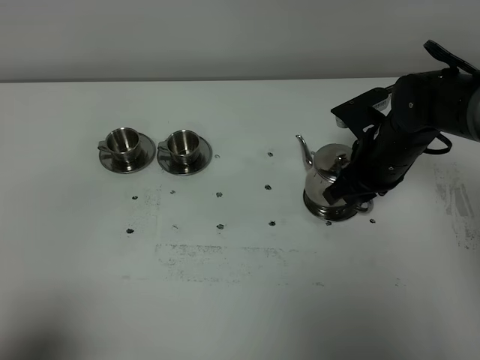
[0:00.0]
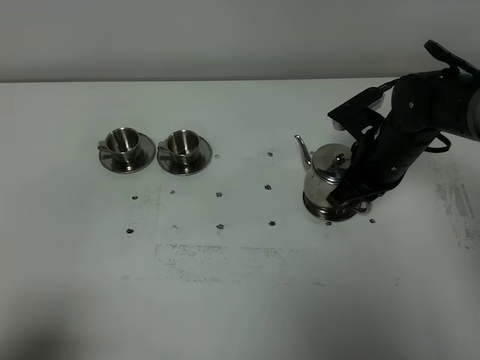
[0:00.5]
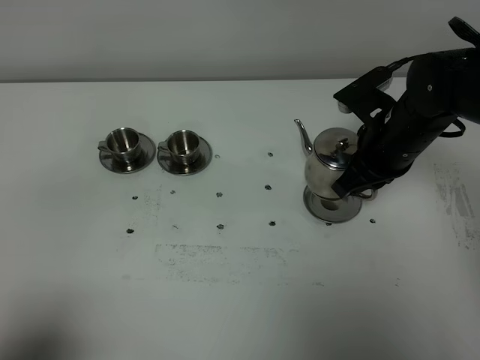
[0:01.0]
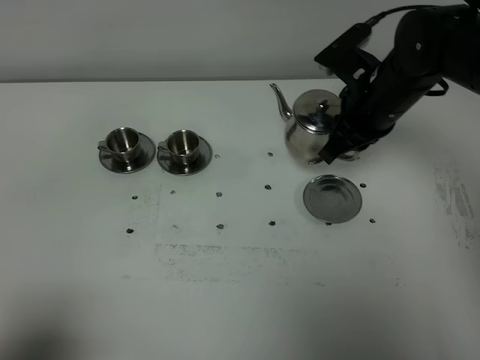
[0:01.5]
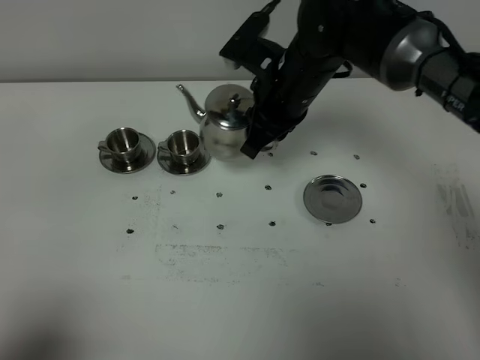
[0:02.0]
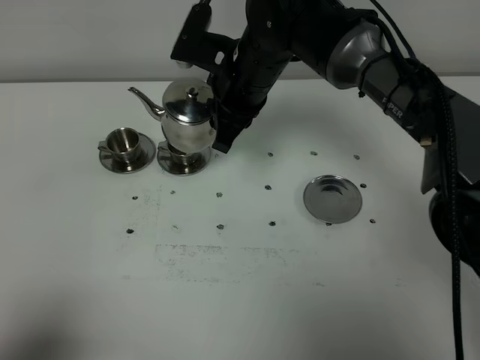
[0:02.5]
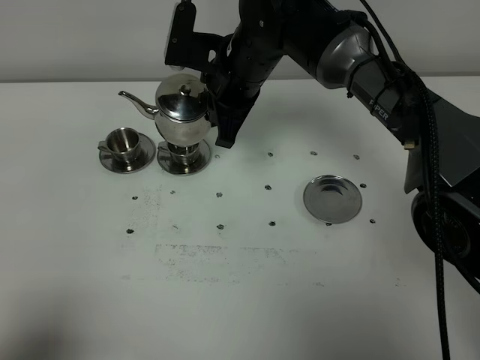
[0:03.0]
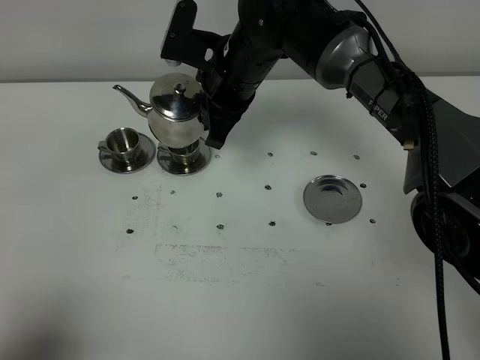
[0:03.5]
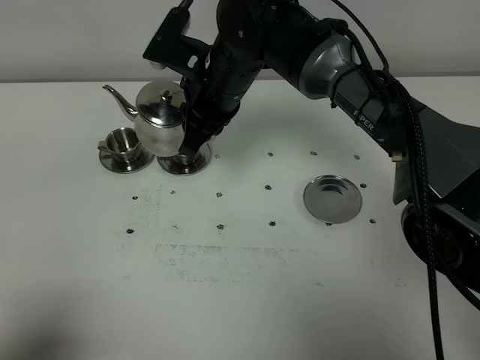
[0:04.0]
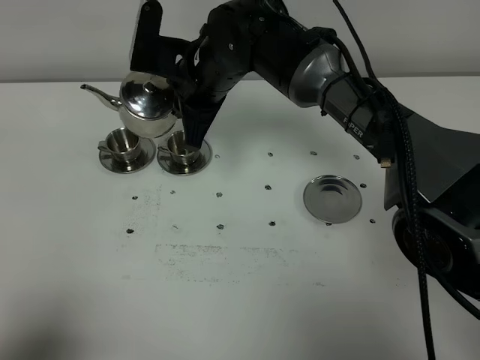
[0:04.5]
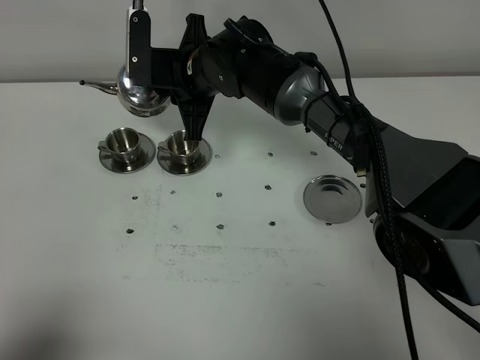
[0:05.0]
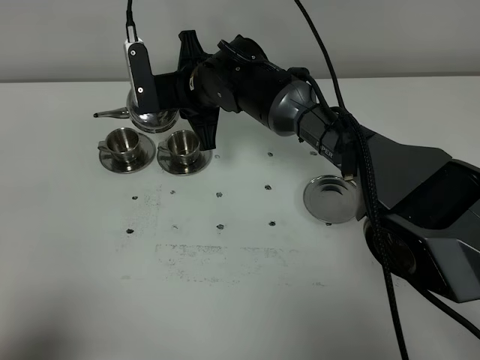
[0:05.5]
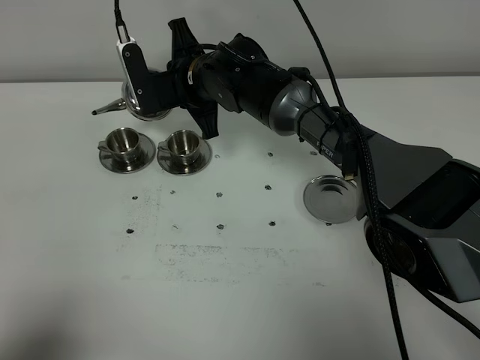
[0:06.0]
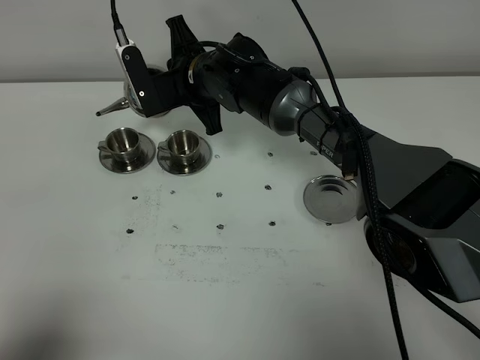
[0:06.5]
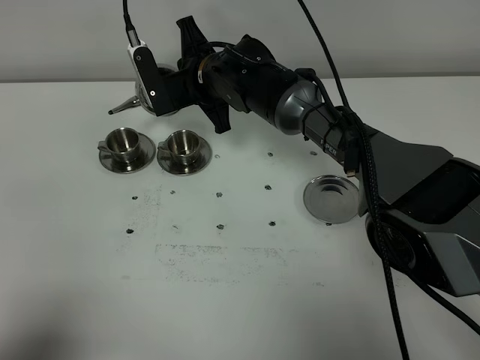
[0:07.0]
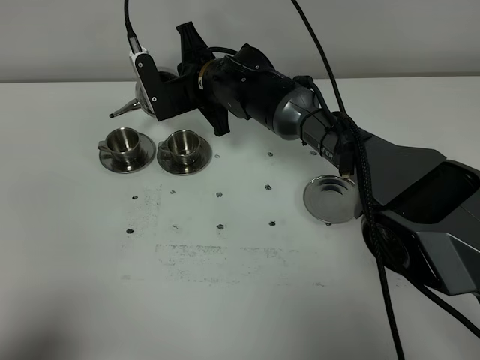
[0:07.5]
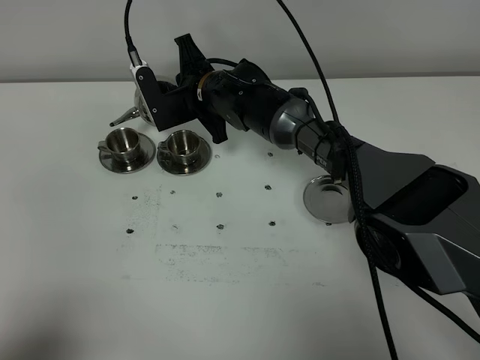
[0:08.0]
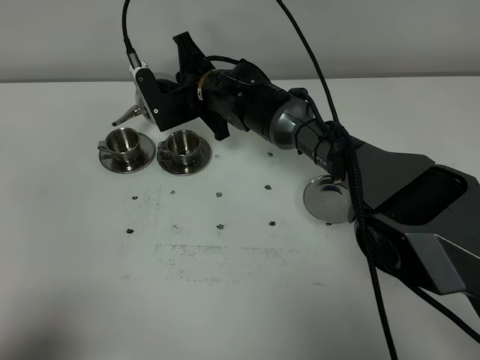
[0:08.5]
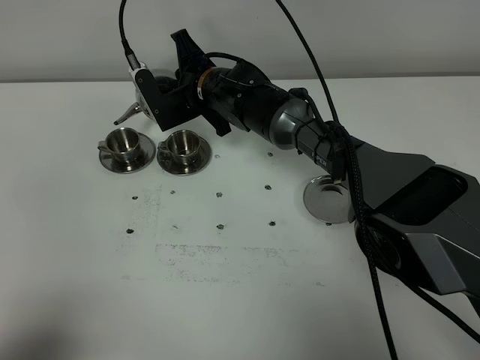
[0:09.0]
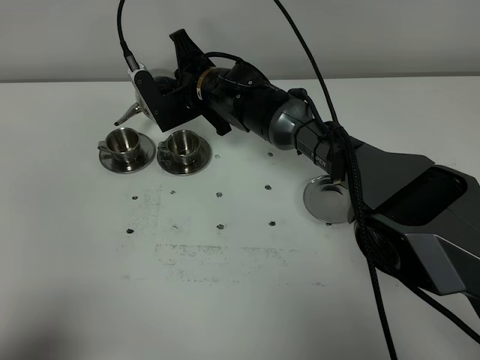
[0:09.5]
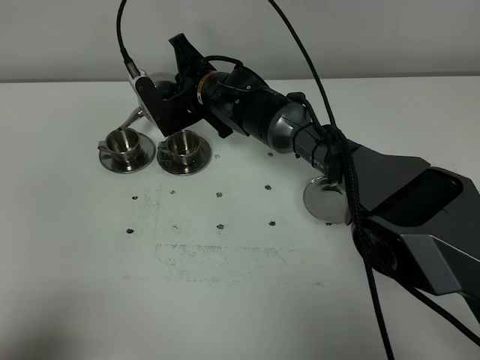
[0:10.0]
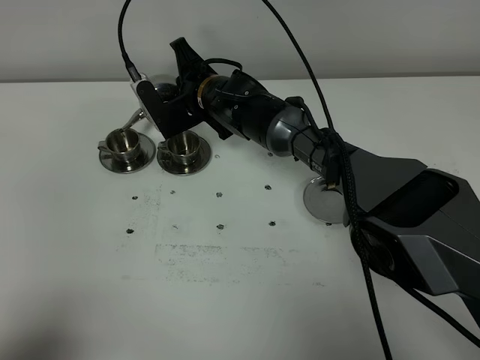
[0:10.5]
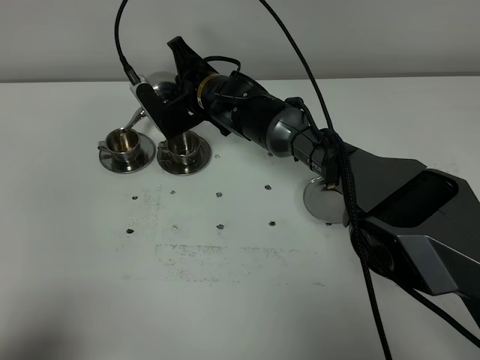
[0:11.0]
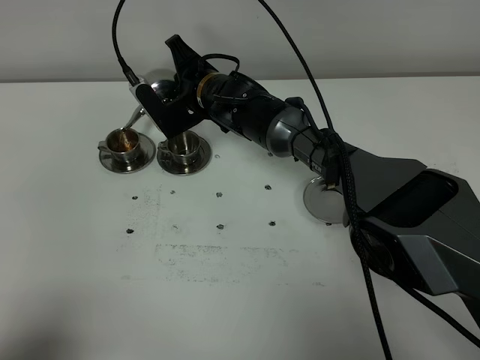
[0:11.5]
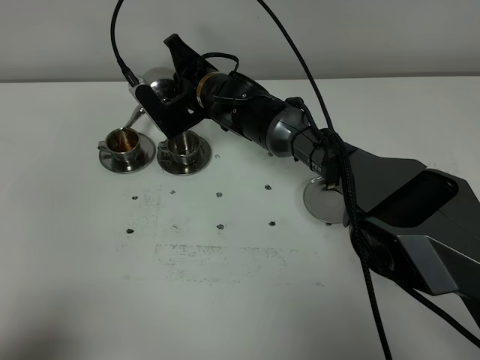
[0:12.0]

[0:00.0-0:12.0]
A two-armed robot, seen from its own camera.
Task of the whole recording: grasp the stainless steel teapot and pour the tea into the two stainless steel teacups one by one, put the stainless steel teapot back in its original place.
0:00.0 to 0:02.0: The right gripper travels to the left and upward by approximately 15 cm.
0:02.0 to 0:04.0: The right gripper shifts approximately 5 cm to the left.
0:04.0 to 0:06.0: The right gripper moves about 5 cm.
0:06.0 to 0:10.0: The grippers stay close to where they were, moving slightly.
0:10.0 to 0:12.0: The grippers make only small movements.

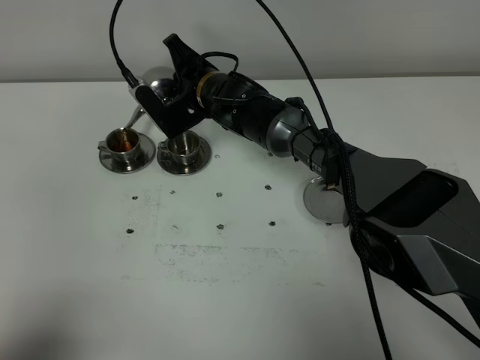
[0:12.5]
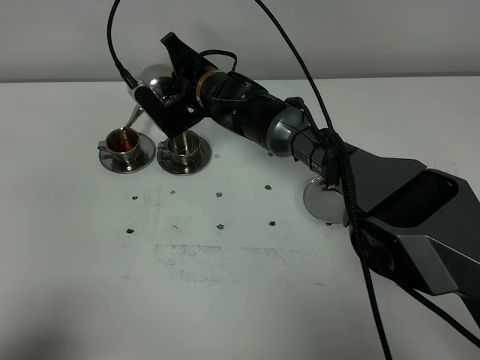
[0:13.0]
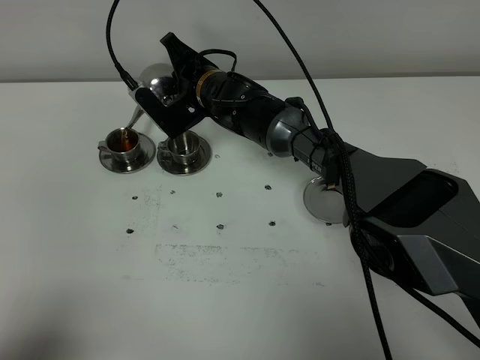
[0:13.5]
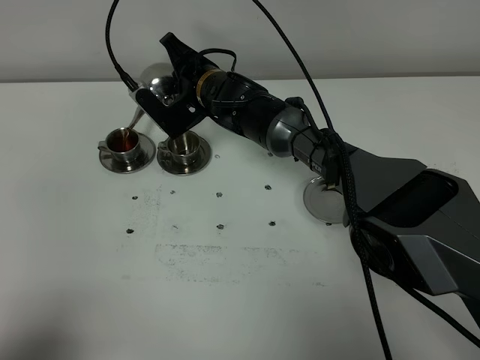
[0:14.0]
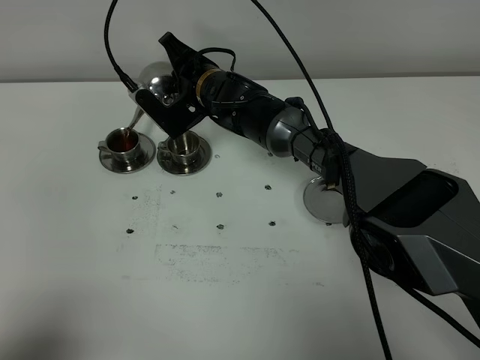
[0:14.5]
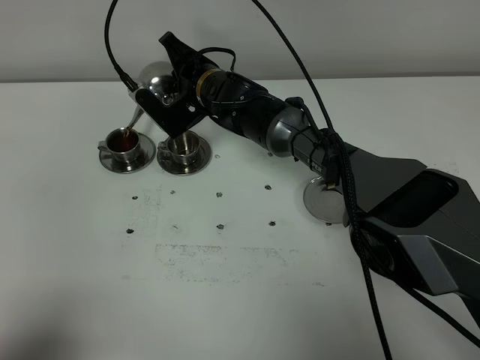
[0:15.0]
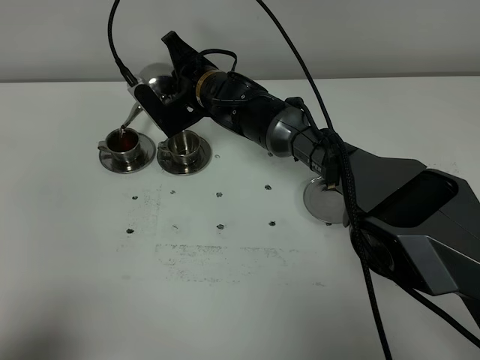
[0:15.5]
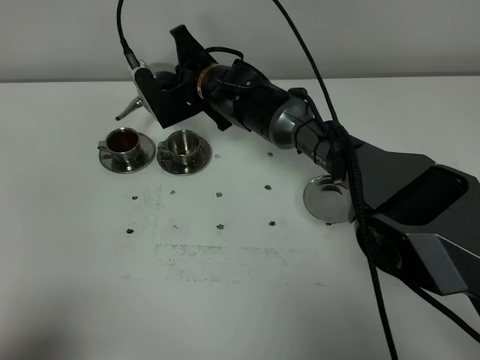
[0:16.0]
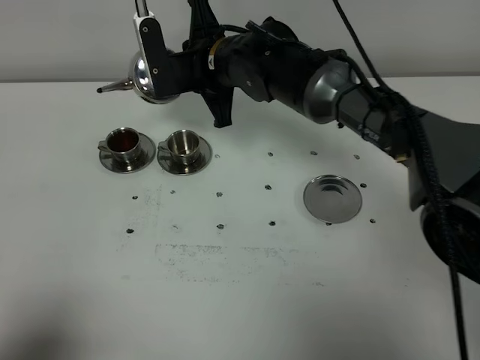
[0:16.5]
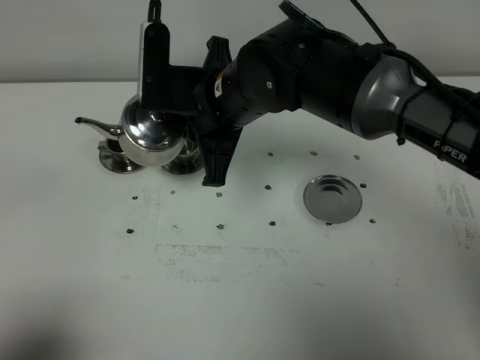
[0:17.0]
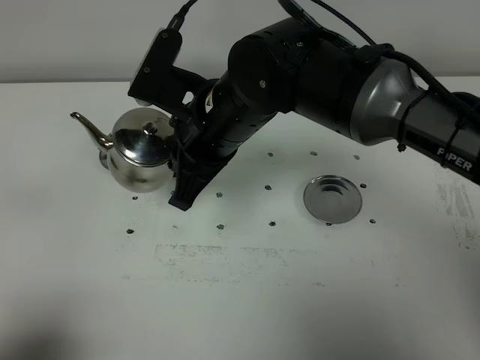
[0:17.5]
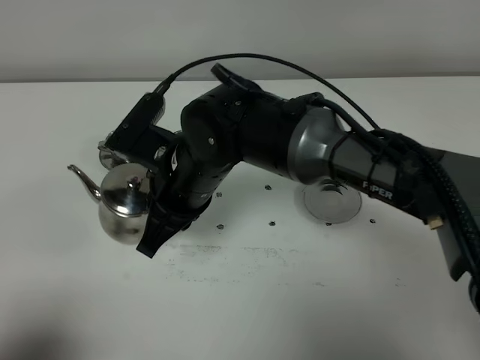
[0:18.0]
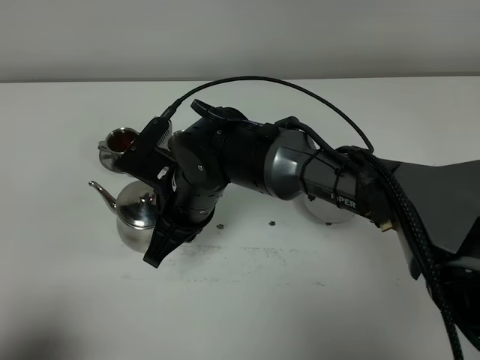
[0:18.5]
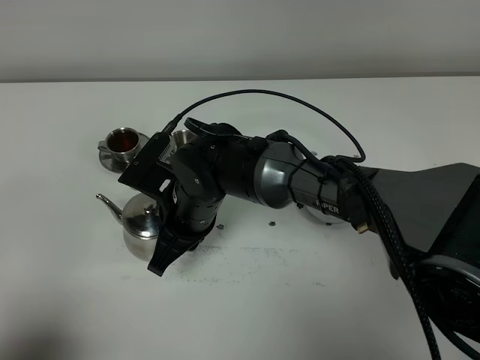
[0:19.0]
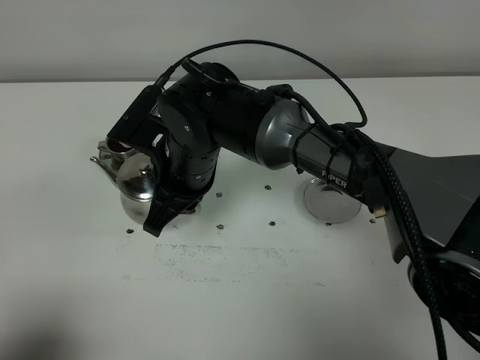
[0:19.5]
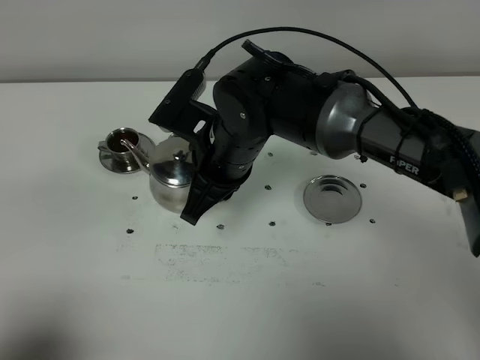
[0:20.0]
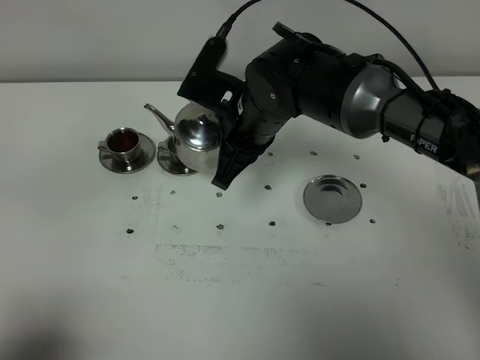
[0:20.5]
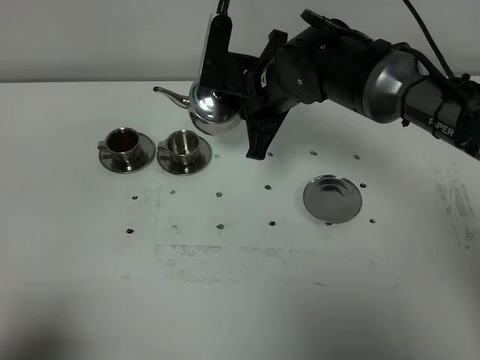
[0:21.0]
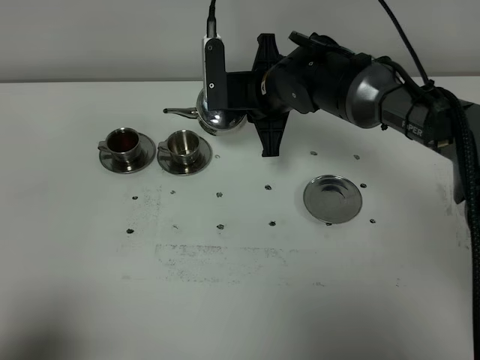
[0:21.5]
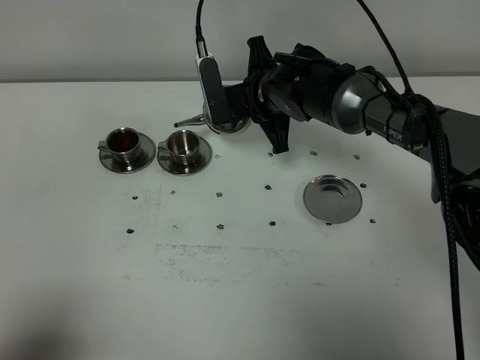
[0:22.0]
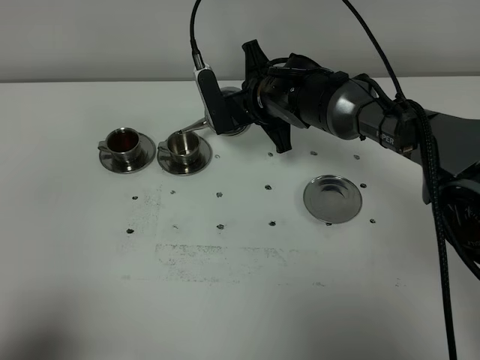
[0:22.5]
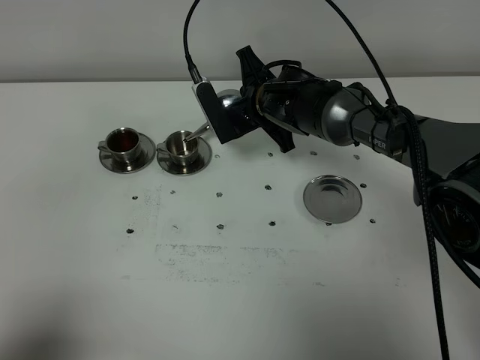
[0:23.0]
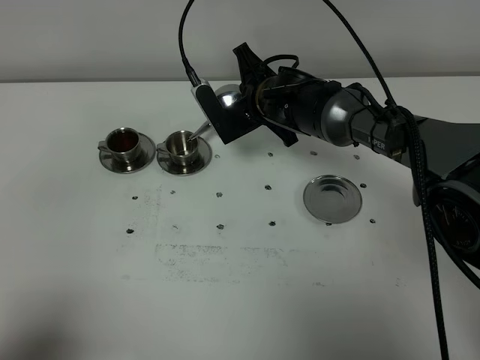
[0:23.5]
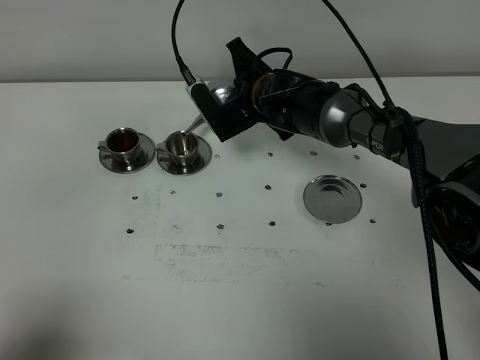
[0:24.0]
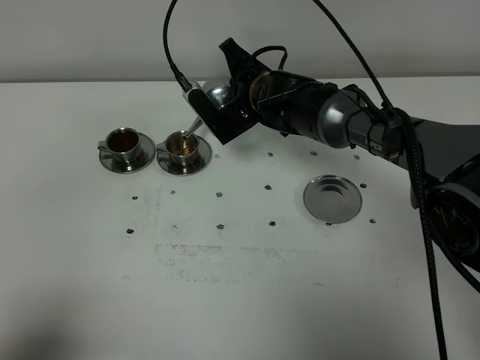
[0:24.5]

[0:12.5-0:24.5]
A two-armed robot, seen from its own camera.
Task of the whole recording: grasp the stainless steel teapot and pour the tea into the two stainless steel teacups one by one, put the stainless steel teapot back in its original place.
0:12.5 to 0:14.5: The grippers make only small movements.
0:14.5 to 0:16.5: The right gripper heads upward and backward, covering approximately 10 cm.
0:16.5 to 0:18.5: The right gripper travels backward and downward by some 15 cm.
0:18.5 to 0:20.5: The right gripper moves to the right, forward and upward, about 10 cm.
0:20.5 to 0:22.5: The right gripper travels forward and downward by roughly 10 cm.

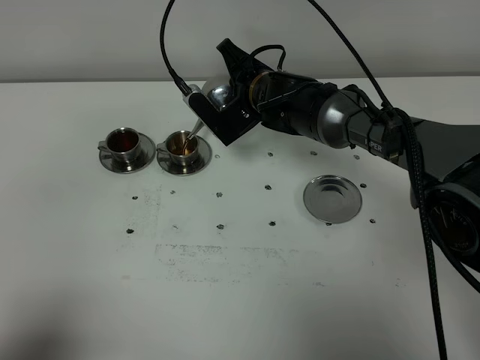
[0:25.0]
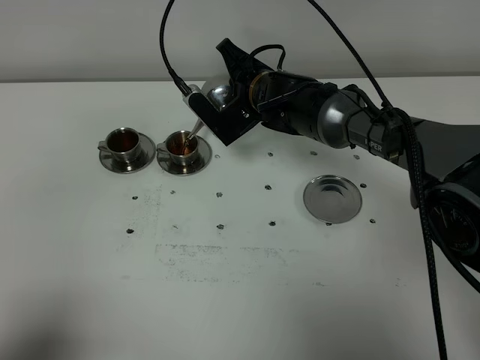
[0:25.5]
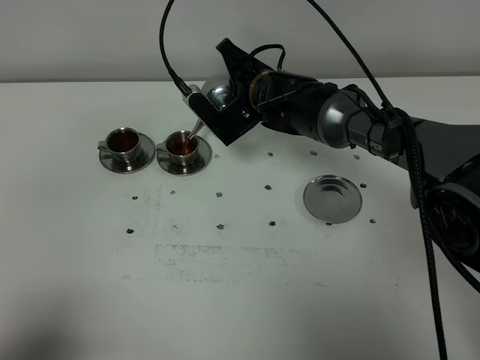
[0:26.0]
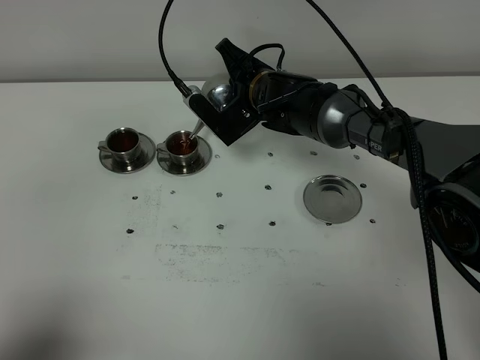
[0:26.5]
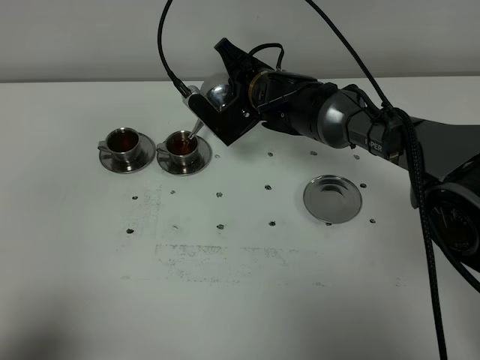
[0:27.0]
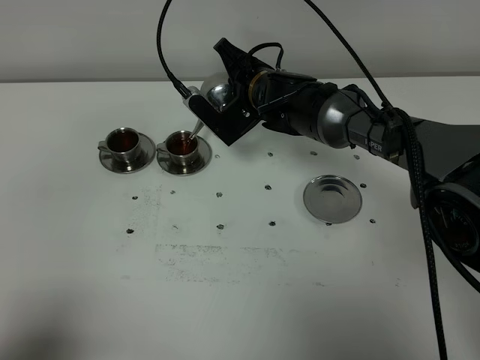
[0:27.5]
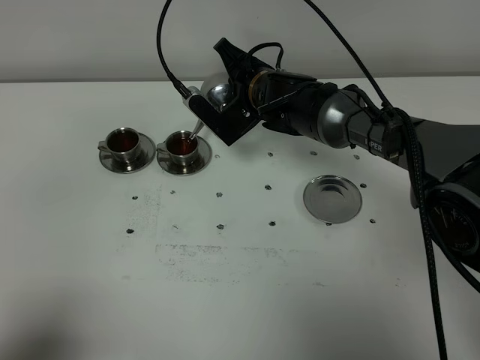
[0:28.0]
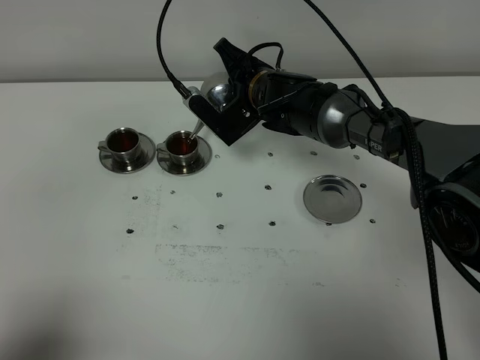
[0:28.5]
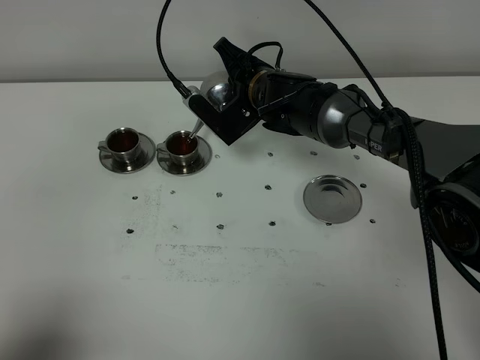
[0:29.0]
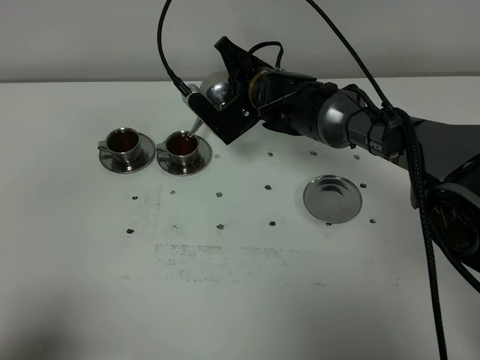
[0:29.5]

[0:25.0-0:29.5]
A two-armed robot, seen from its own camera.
Task of the whole recording: grasp the stainless steel teapot and pour the tea into the two stainless steel teacups one by one, put the stainless steel teapot back in its original place.
0:25.0 to 0:29.5: Both grippers stay about where they are.
